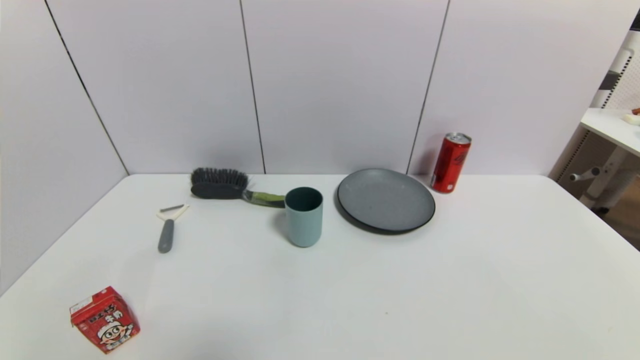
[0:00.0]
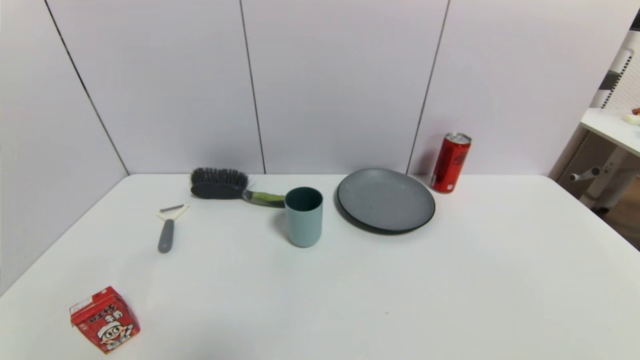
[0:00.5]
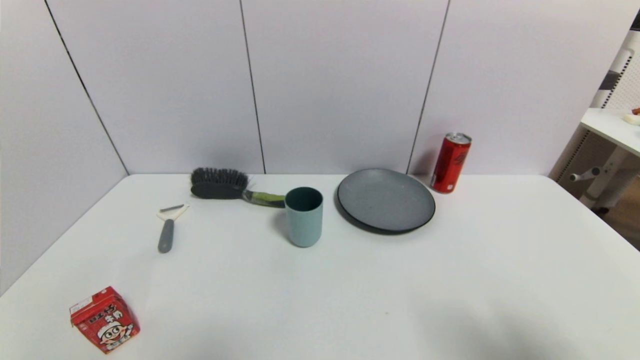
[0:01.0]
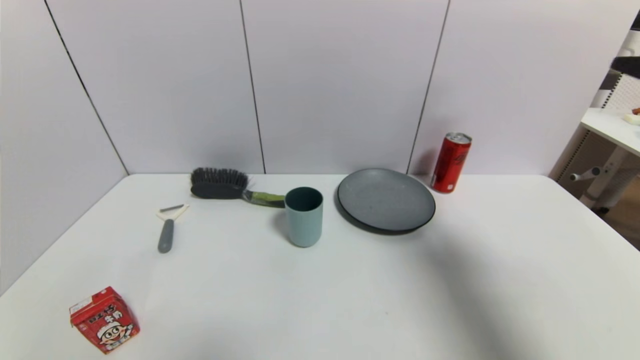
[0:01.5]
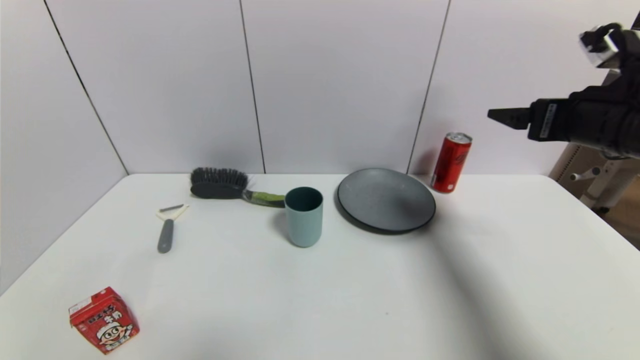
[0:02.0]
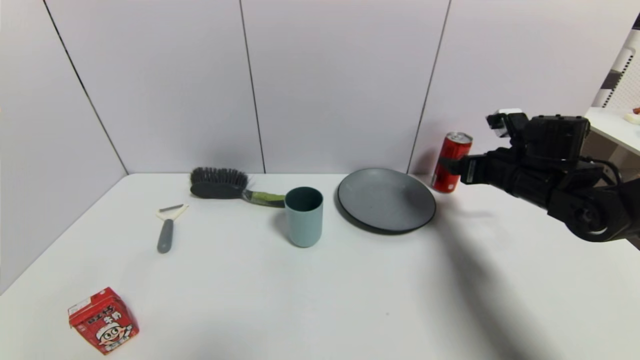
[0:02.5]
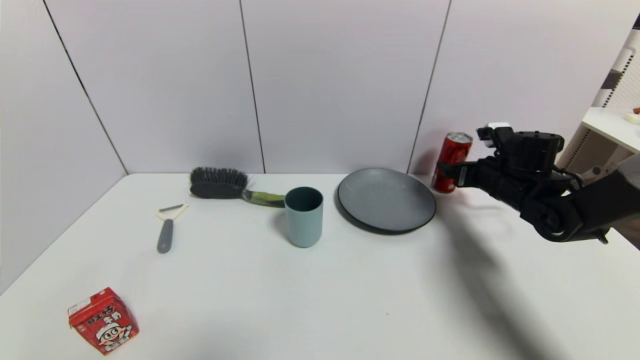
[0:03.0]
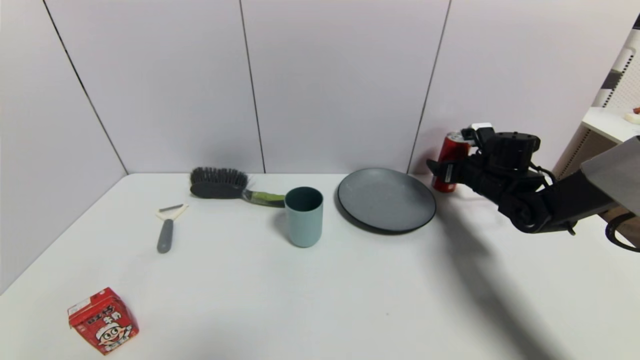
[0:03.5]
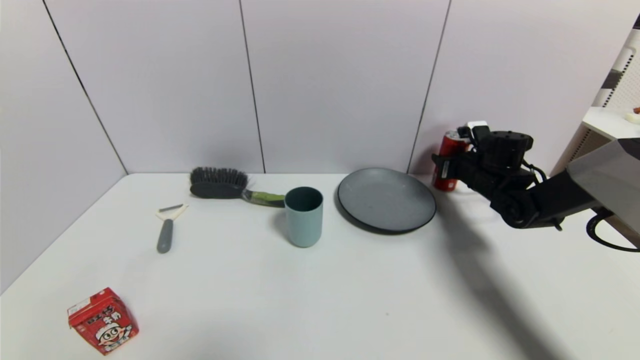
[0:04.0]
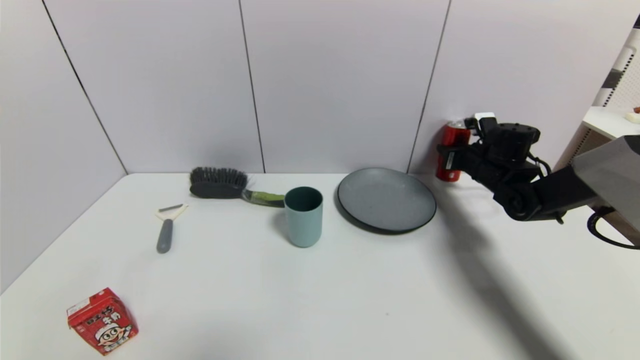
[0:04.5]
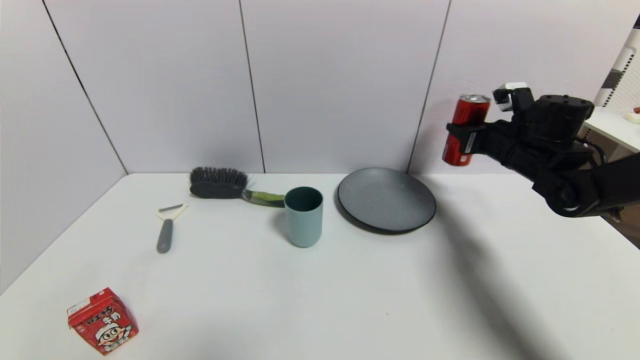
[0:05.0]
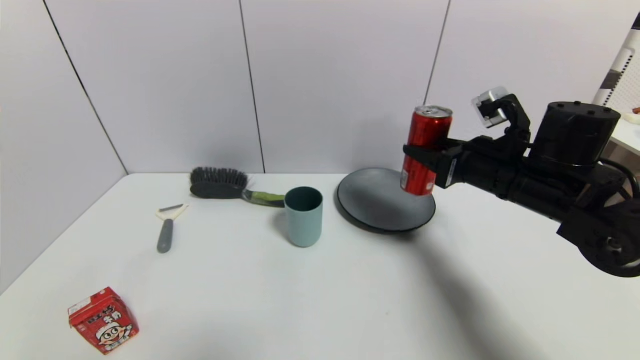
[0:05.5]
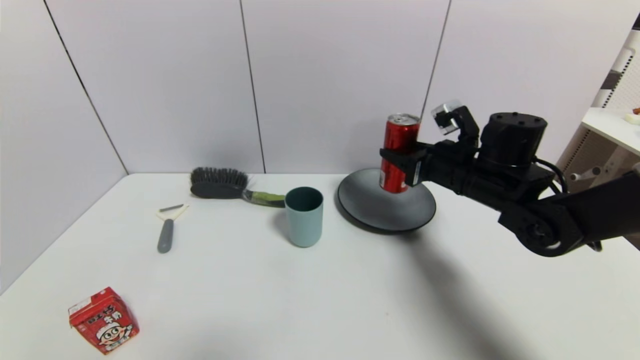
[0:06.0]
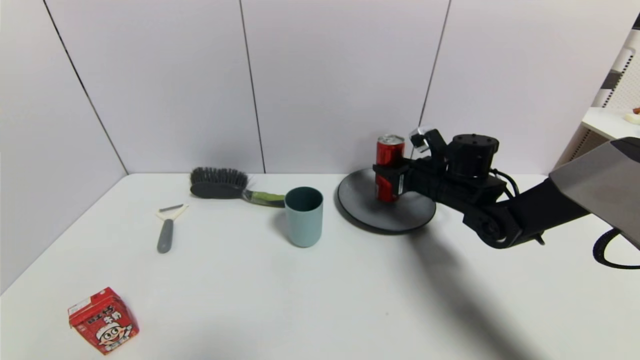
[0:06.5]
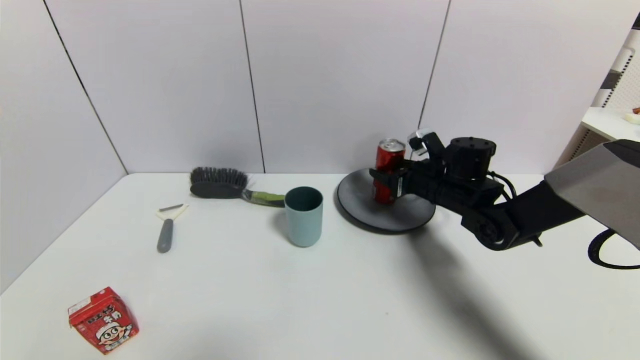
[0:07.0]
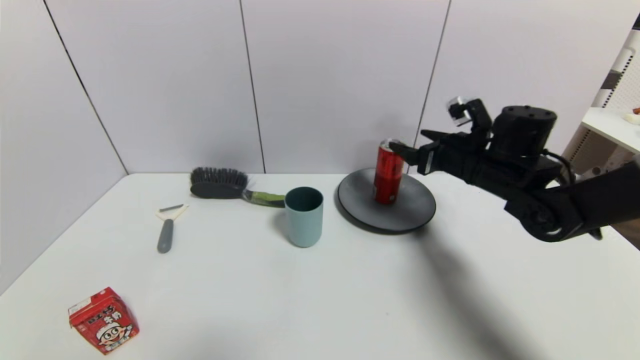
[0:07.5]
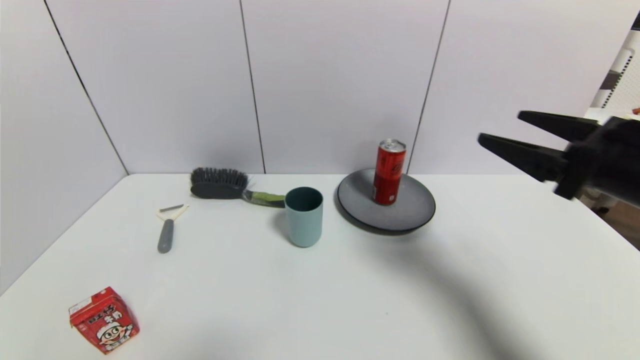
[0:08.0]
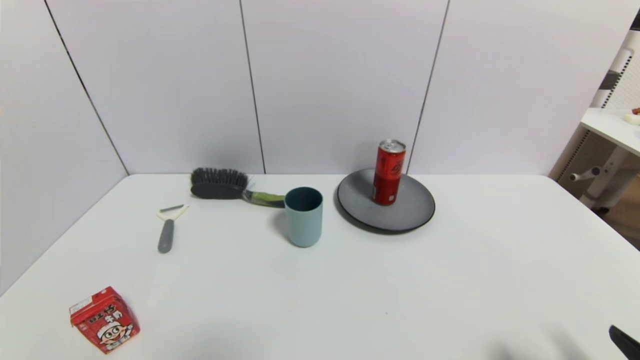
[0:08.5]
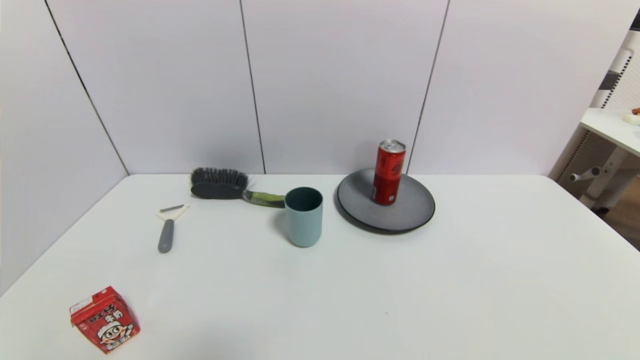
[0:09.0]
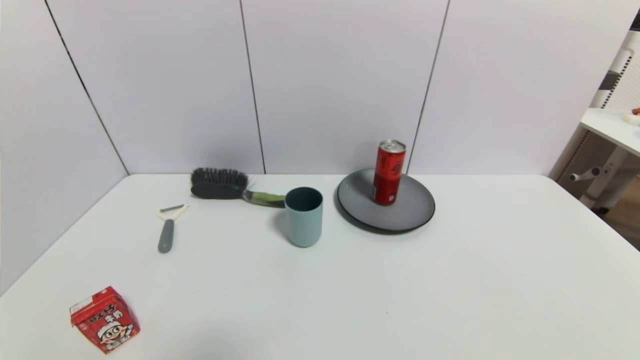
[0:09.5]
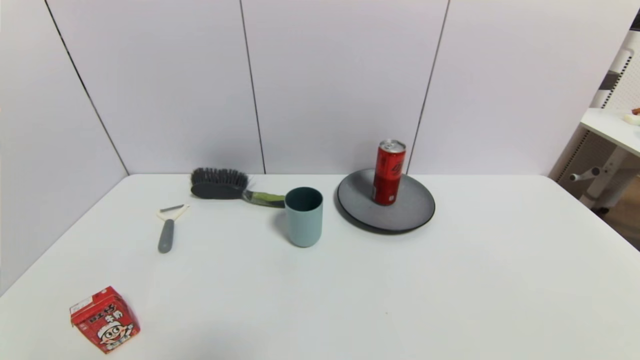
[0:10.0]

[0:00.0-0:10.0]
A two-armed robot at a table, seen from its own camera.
Task of the whole recording: use a gripper to pick the target object and place on the gray plate.
Step, 0:00.0 to 0:04.0: Grasp the coke with the right gripper.
Step, 0:04.5 to 0:07.0: Place the coke on the gray plate with the right gripper.
0:00.0 to 0:02.0: The right gripper goes approximately 35 cm forward and upward.
0:02.0 to 0:04.0: The right gripper heads forward and downward, covering approximately 25 cm, and closes up.
0:04.0 to 0:06.0: The right gripper shifts roughly 15 cm to the left, backward and upward.
0:06.0 to 0:08.0: The right gripper shifts roughly 20 cm backward, upward and to the right, and opens its fingers.
0:08.0 to 0:10.0: The right gripper moves backward and downward, approximately 25 cm.
